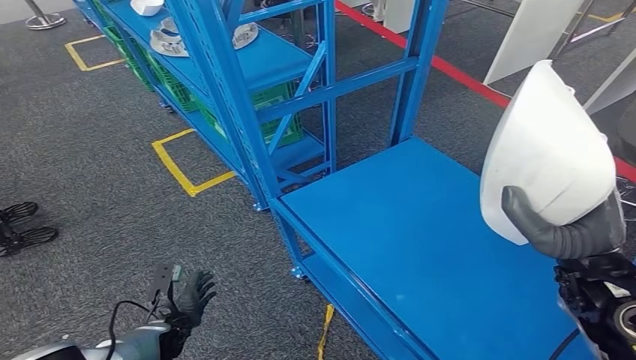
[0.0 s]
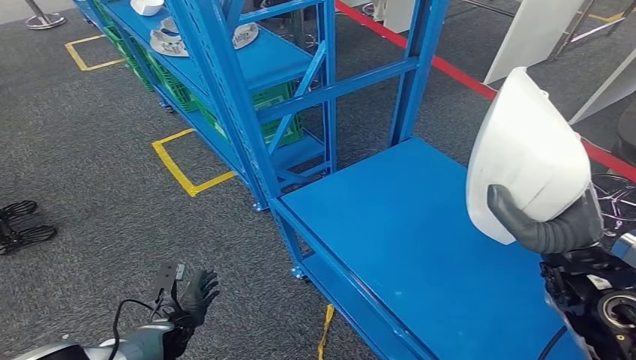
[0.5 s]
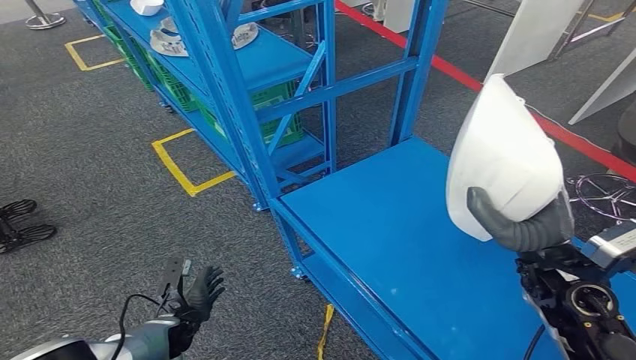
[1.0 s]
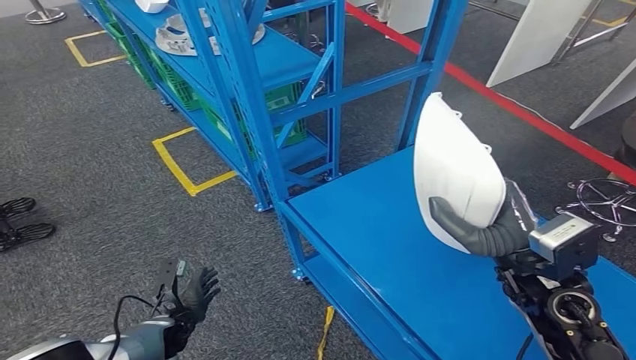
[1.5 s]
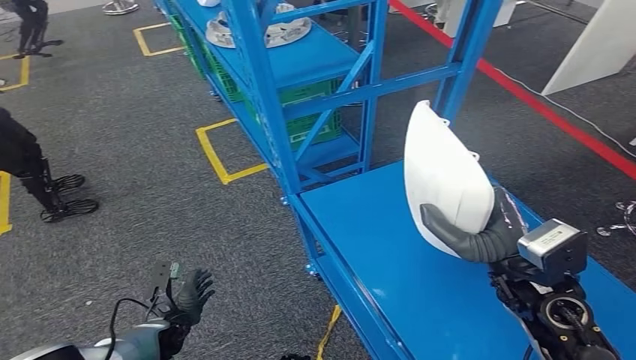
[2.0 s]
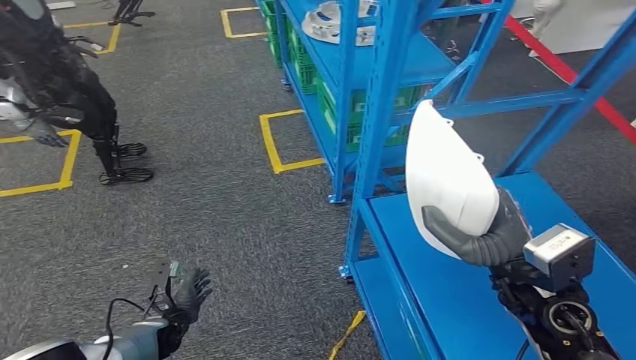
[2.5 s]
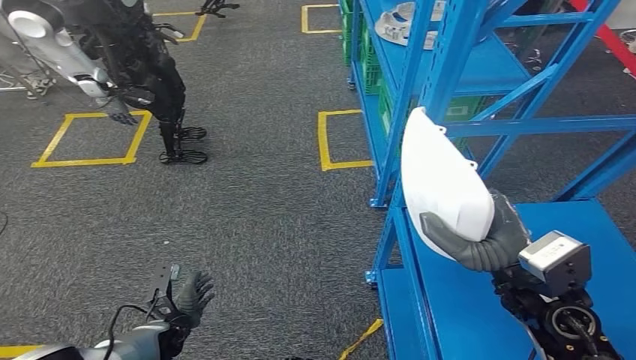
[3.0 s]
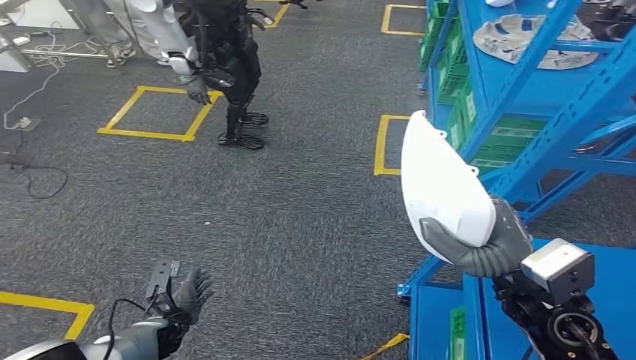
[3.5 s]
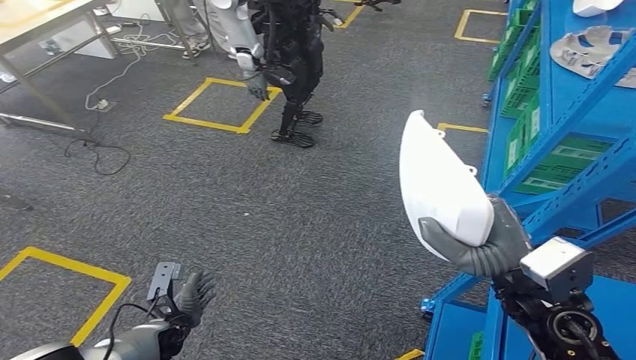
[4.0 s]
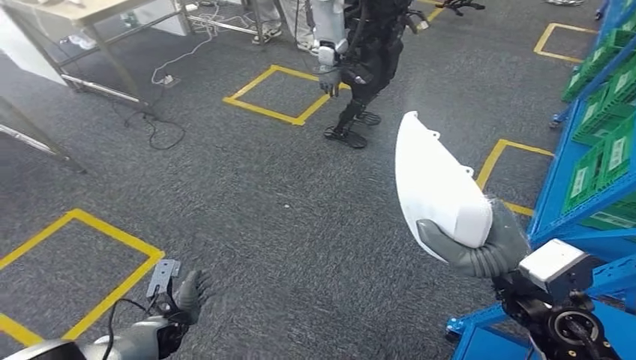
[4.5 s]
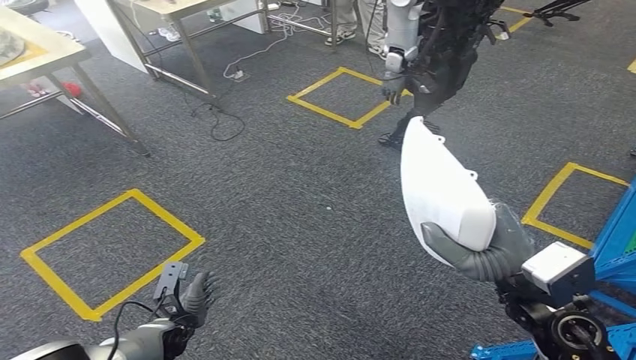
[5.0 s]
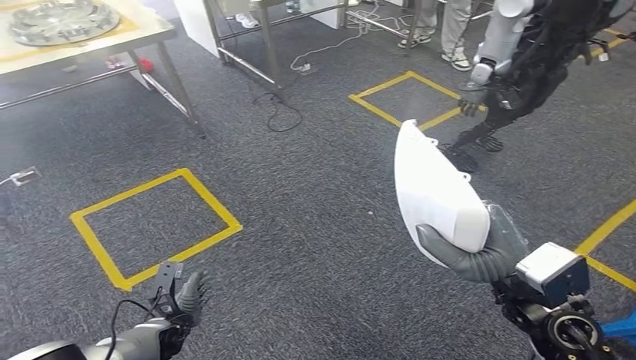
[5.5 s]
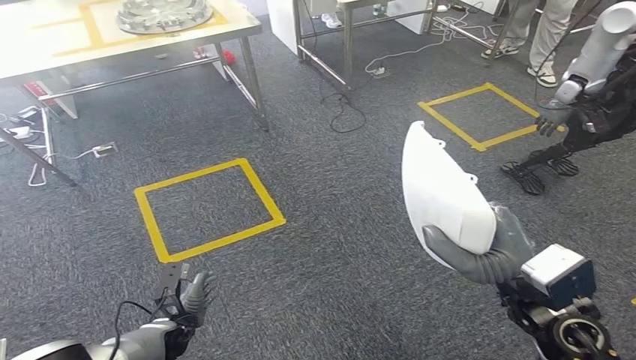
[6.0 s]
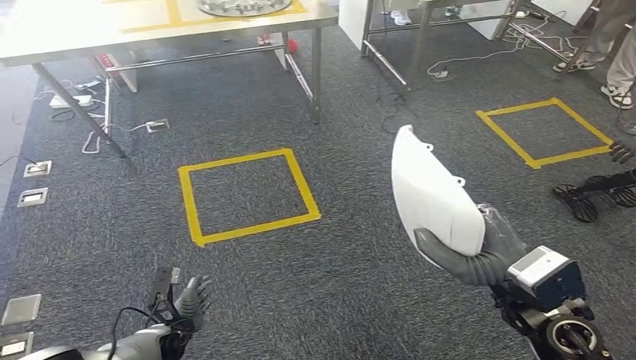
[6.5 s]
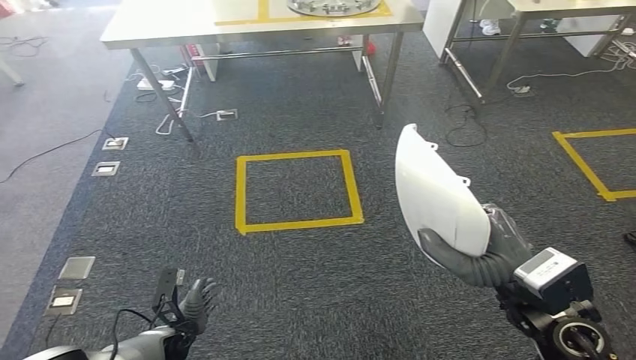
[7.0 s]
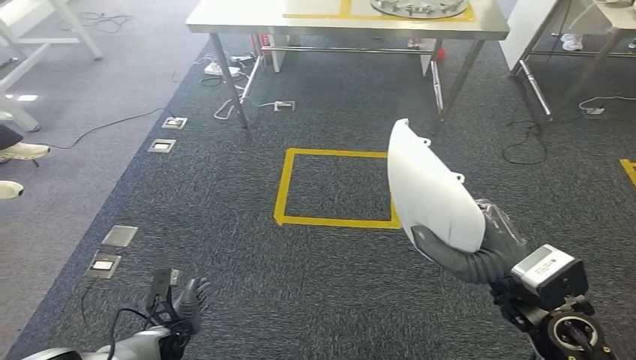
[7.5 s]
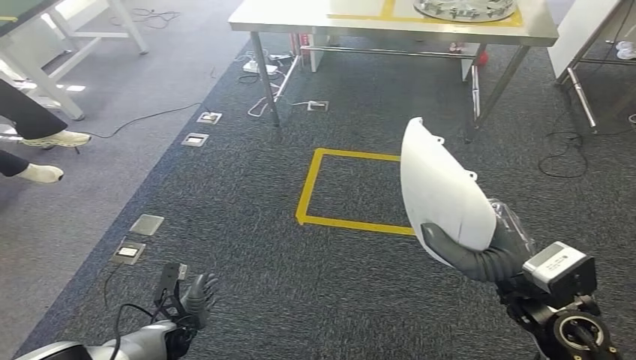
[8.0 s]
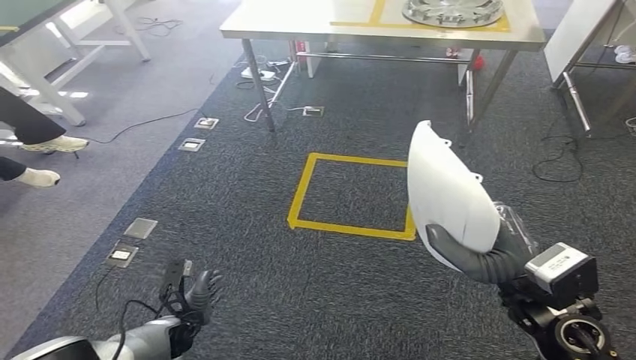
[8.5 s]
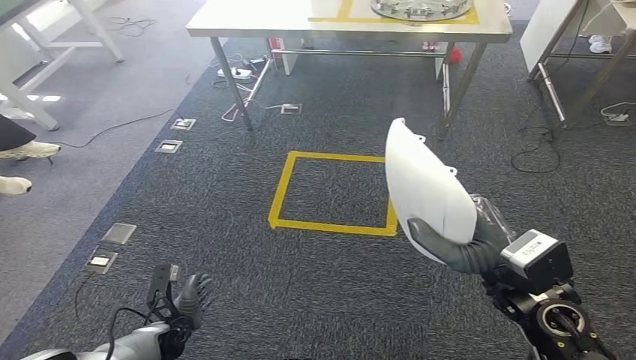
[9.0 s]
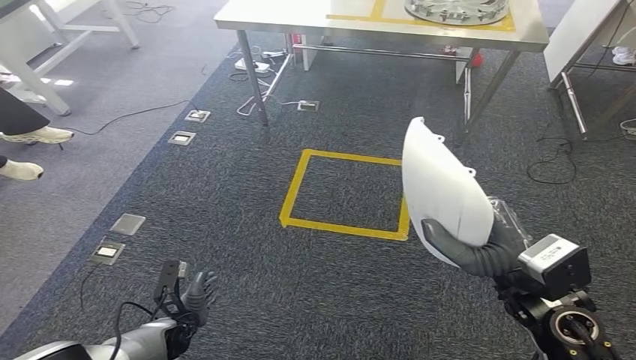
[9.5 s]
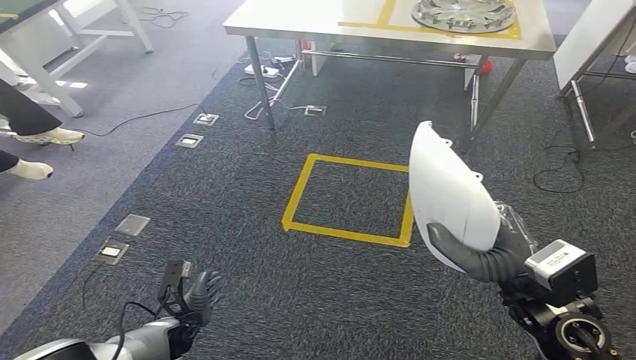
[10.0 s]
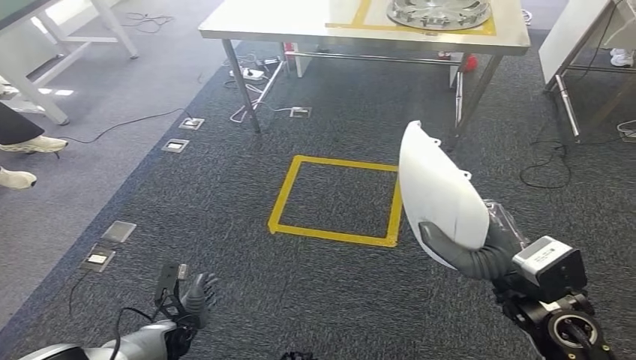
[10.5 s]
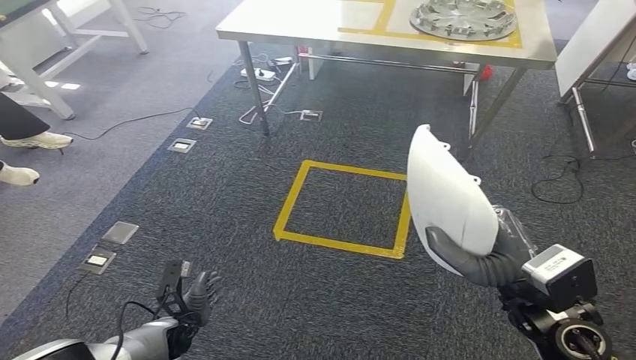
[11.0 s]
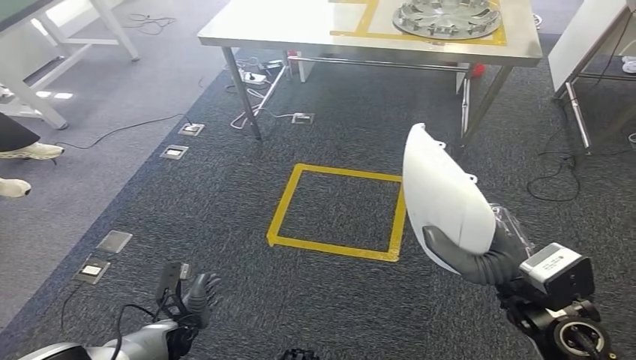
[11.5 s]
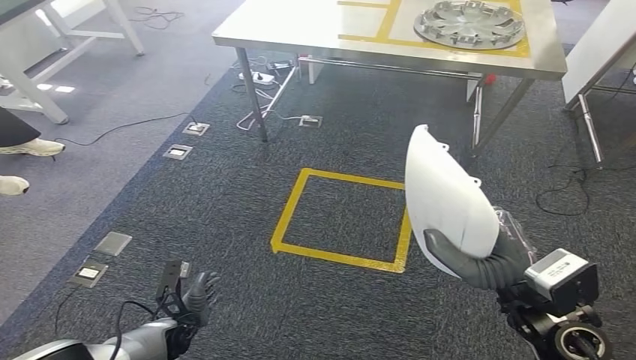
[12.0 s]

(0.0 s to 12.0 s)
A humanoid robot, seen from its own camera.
8.0 s - 10.0 s: Both hands stay put.

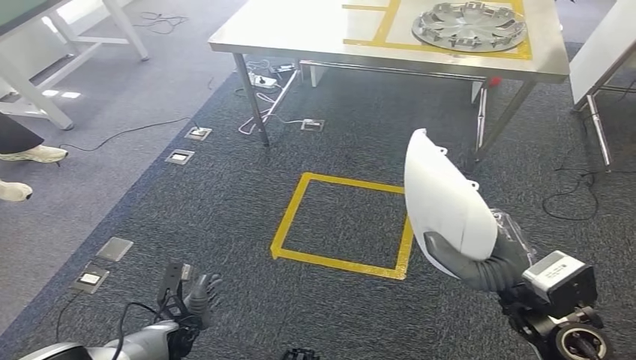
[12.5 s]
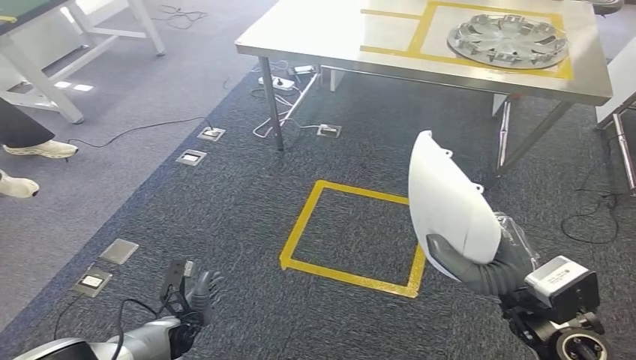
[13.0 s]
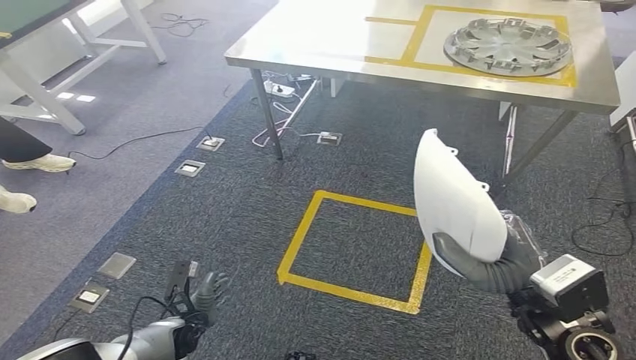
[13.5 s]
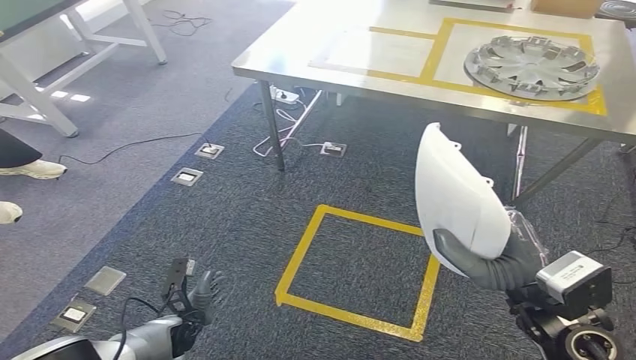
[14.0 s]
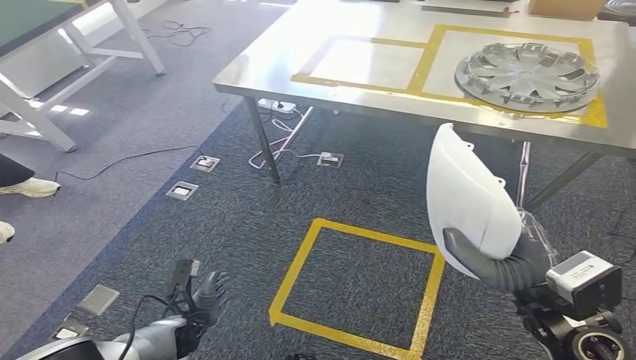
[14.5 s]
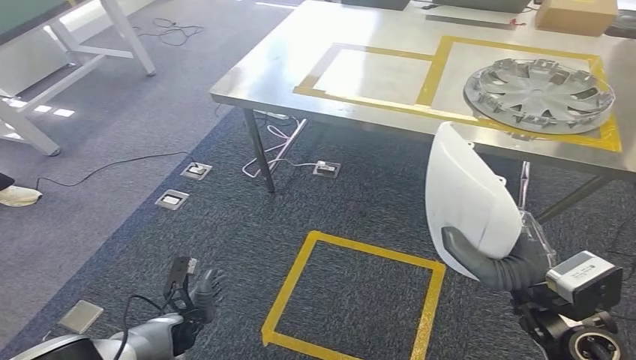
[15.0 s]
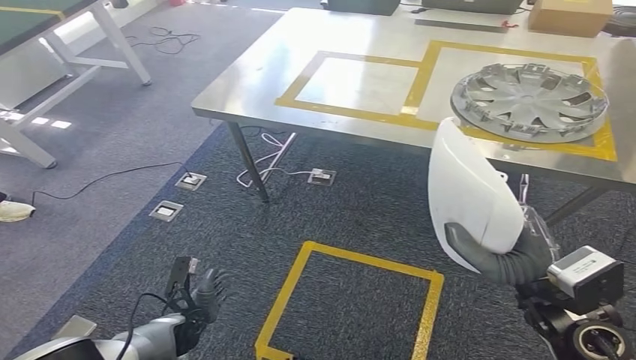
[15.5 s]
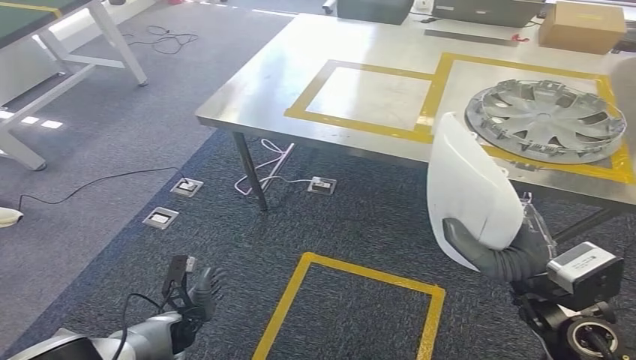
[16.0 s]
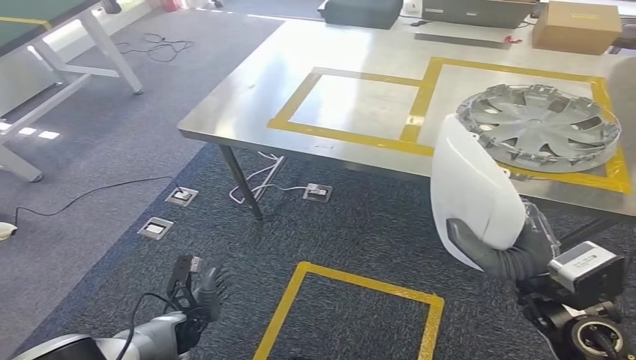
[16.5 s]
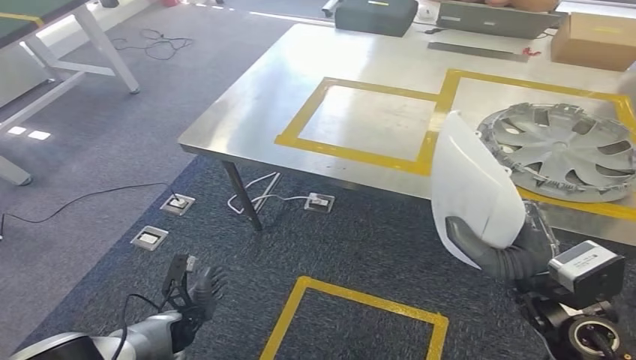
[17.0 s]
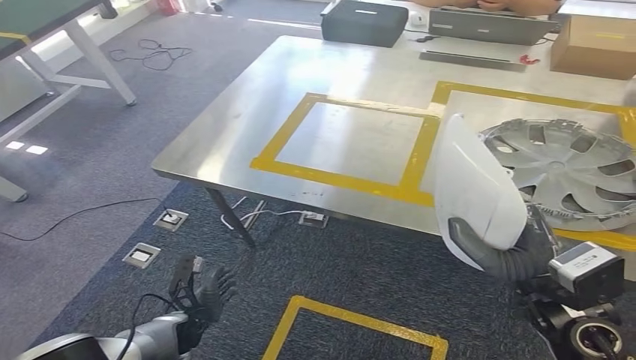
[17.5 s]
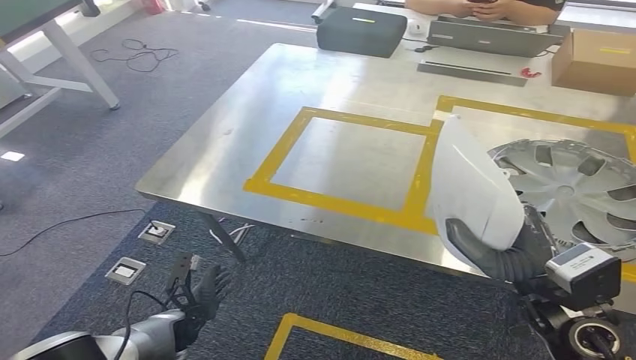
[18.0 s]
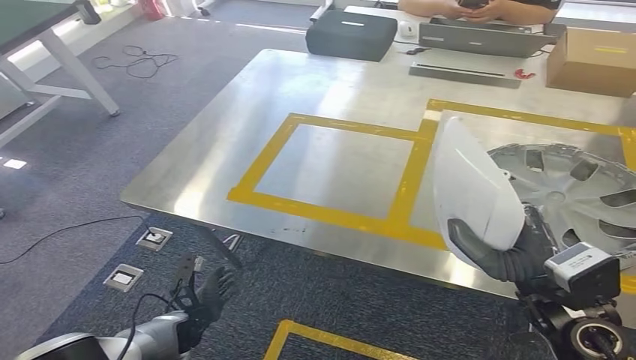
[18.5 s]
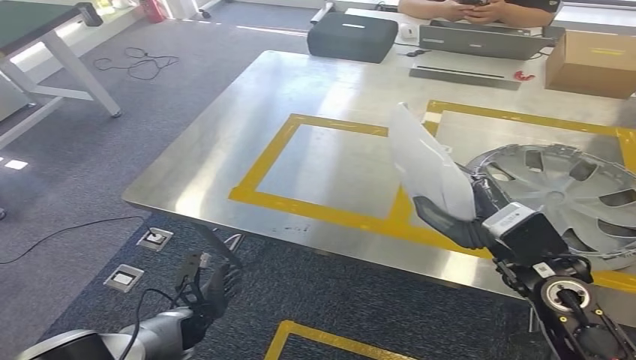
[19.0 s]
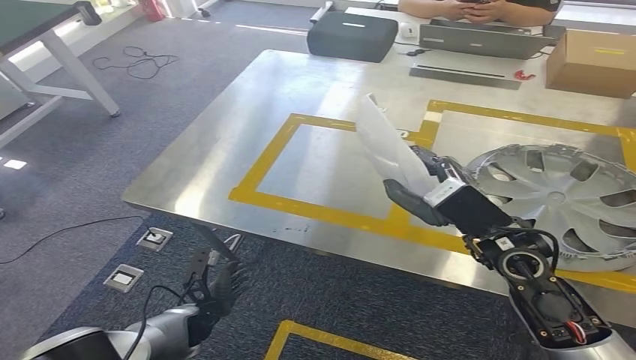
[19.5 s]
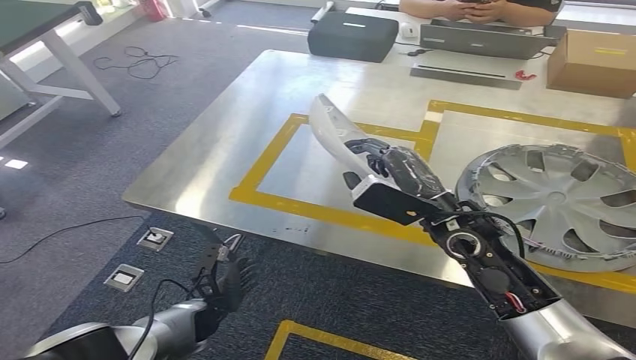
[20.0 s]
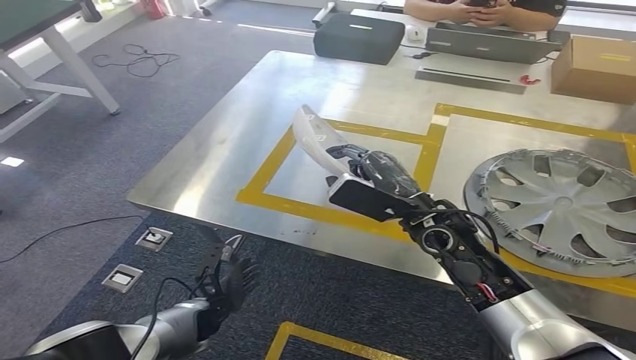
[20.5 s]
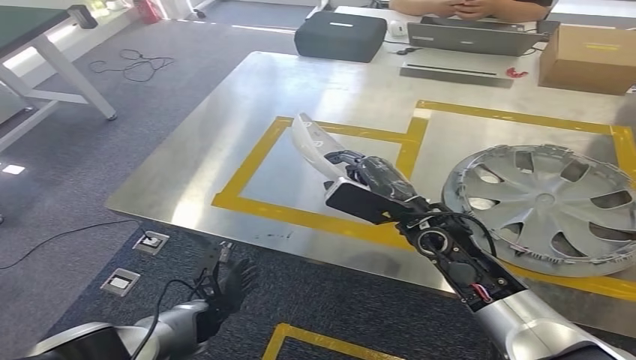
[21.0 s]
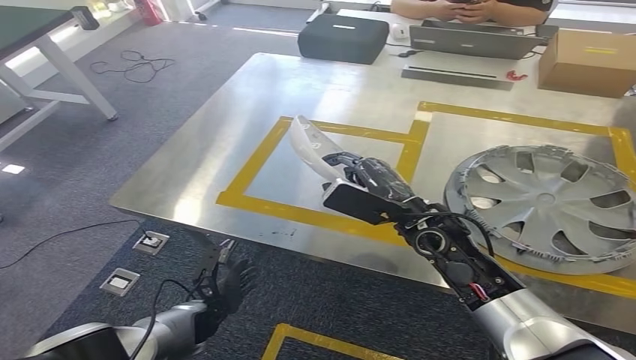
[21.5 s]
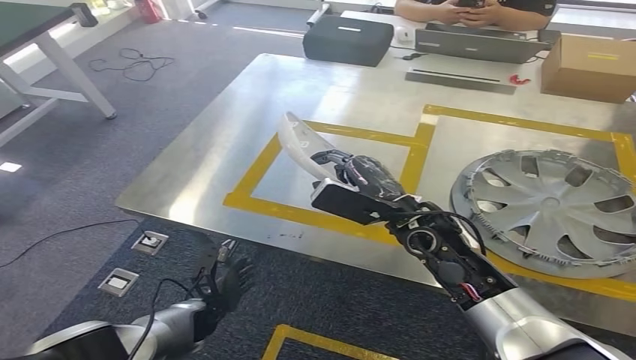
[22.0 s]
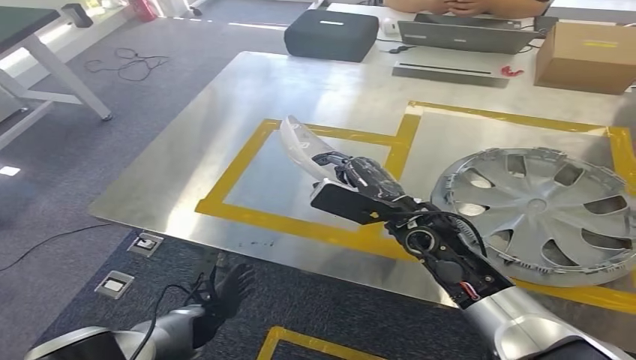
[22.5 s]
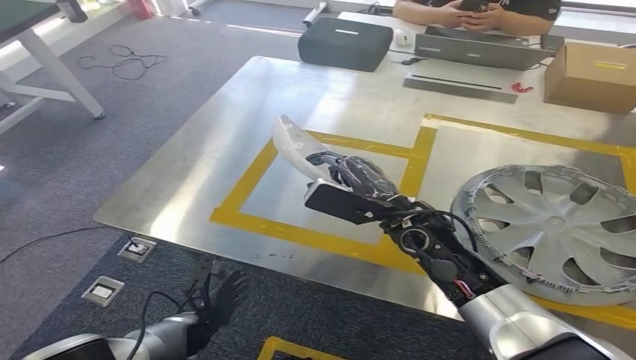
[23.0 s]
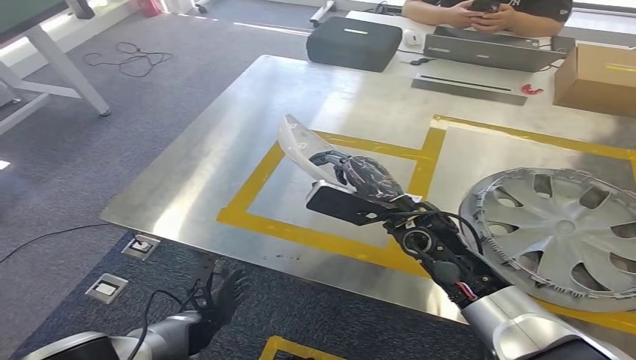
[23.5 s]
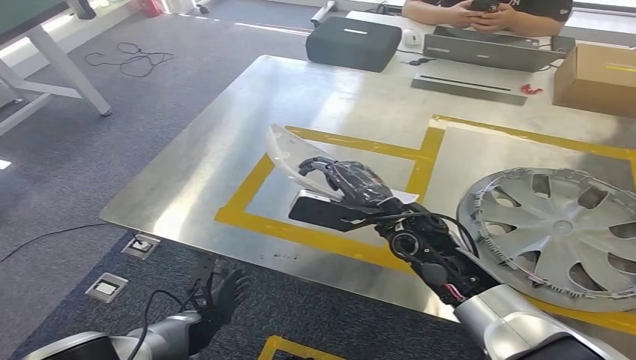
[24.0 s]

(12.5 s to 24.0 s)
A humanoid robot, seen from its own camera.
Step, 12.5 s - 19.5 s: Move the small component to the workbench.
18.5 s - 20.0 s: The right hand shifts about 15 cm to the left and forward.
